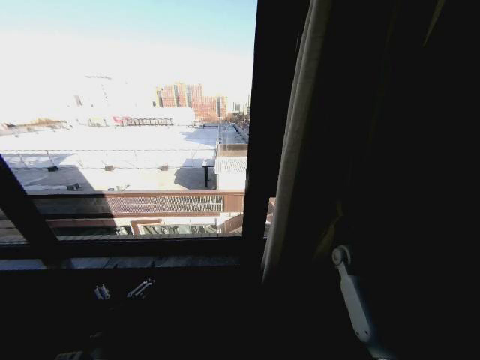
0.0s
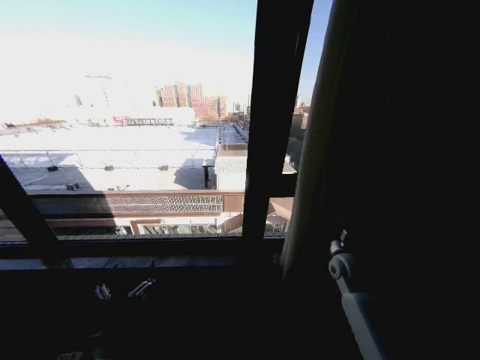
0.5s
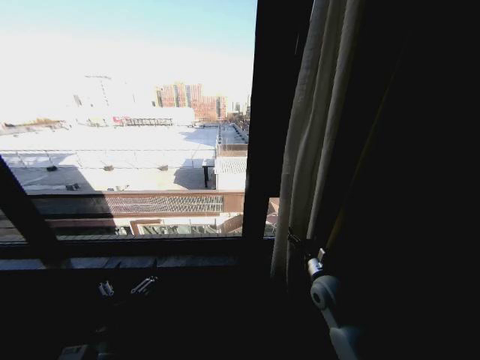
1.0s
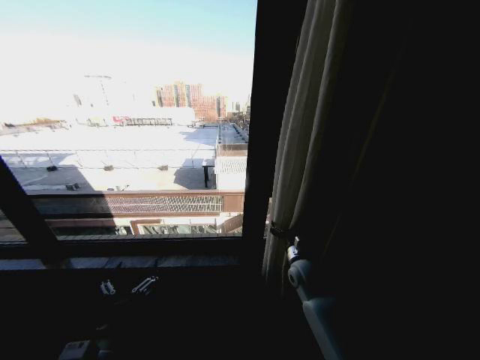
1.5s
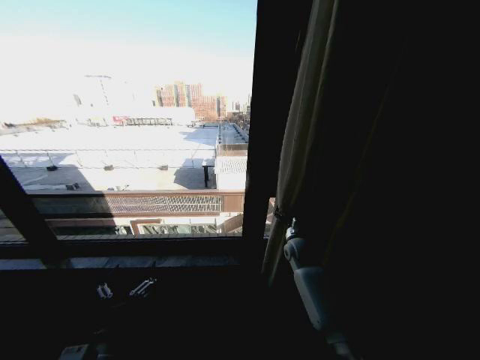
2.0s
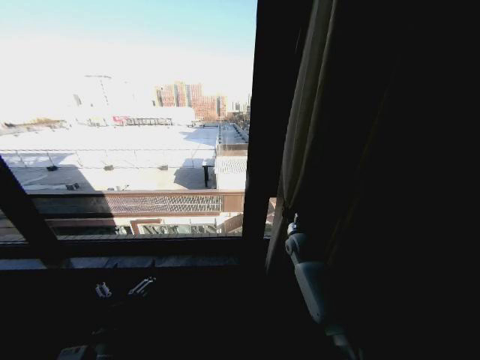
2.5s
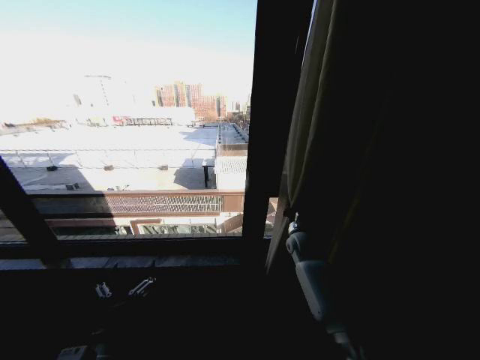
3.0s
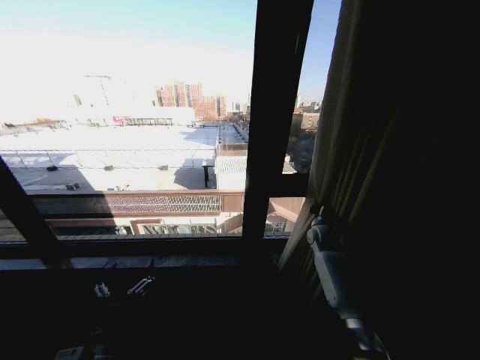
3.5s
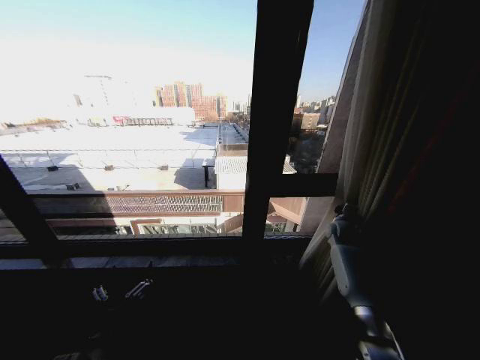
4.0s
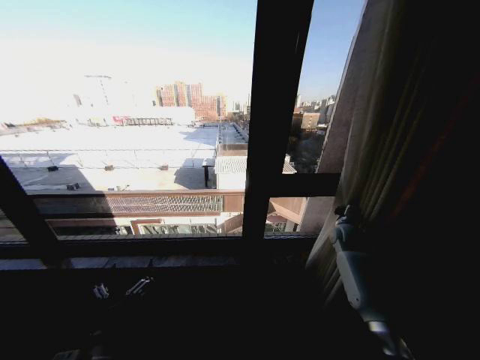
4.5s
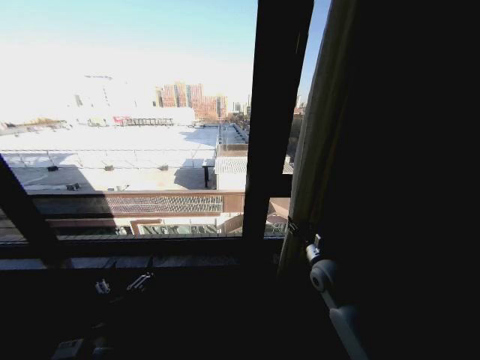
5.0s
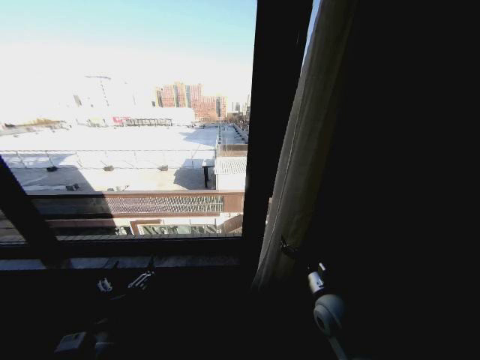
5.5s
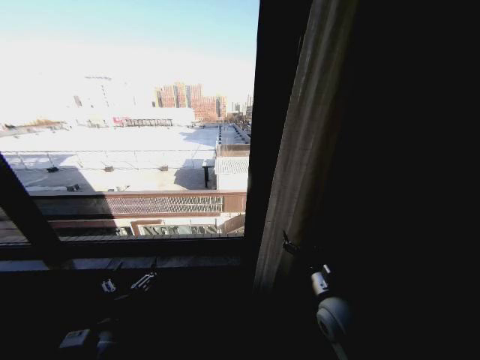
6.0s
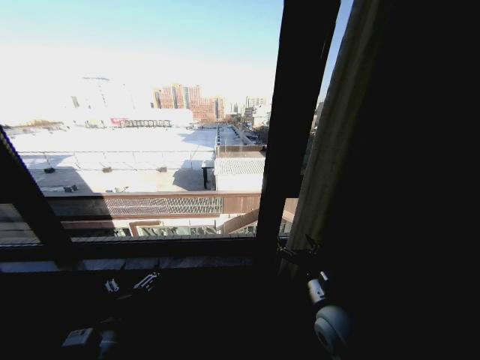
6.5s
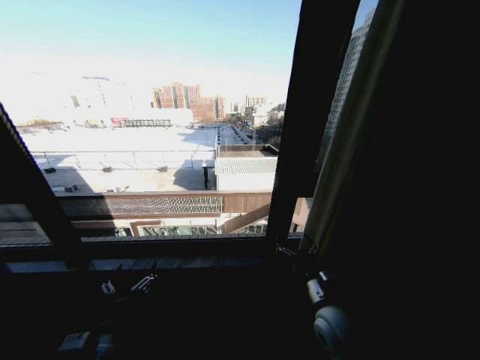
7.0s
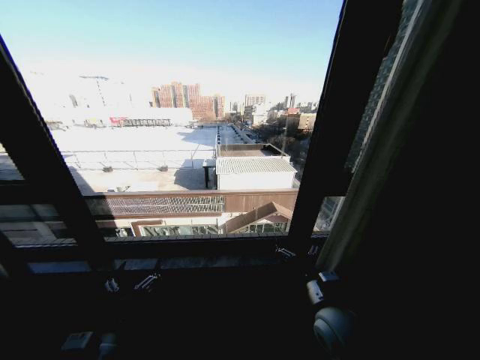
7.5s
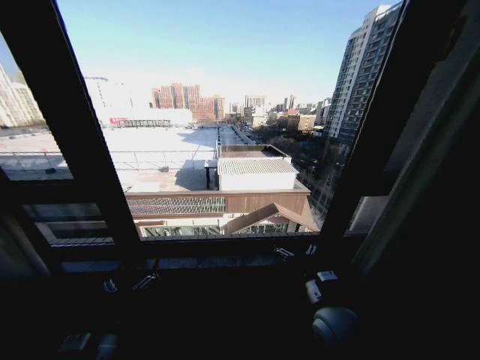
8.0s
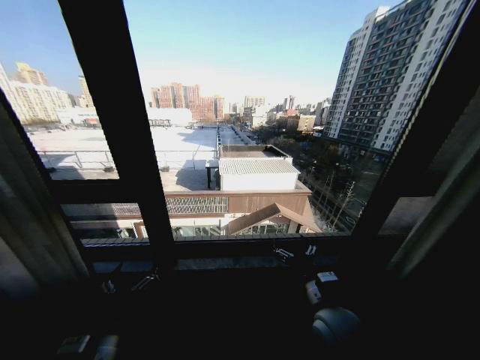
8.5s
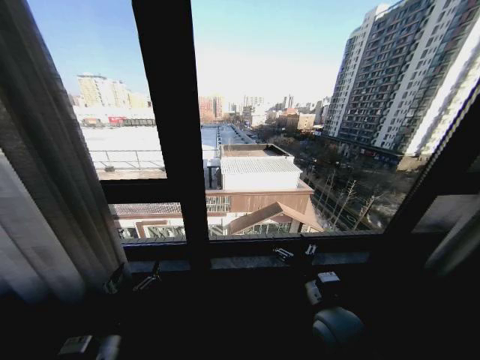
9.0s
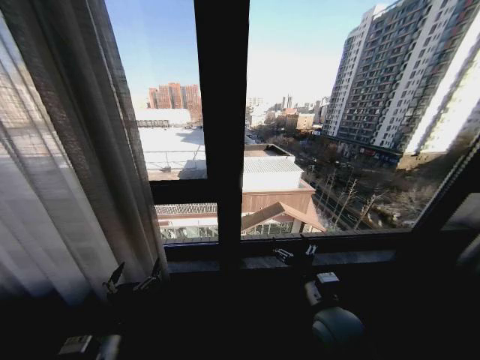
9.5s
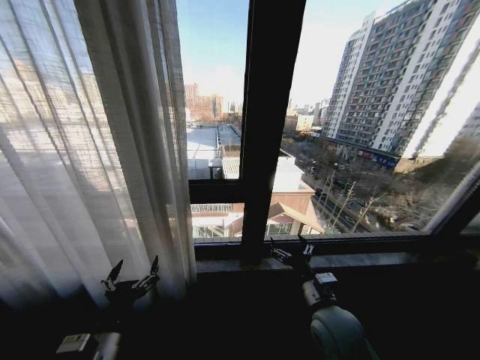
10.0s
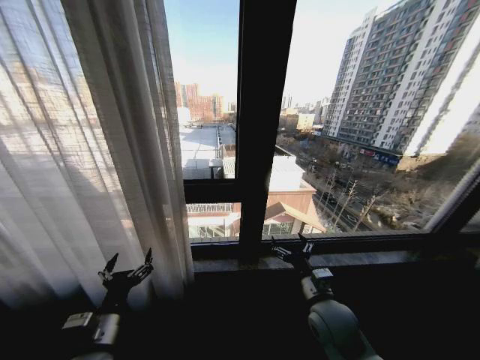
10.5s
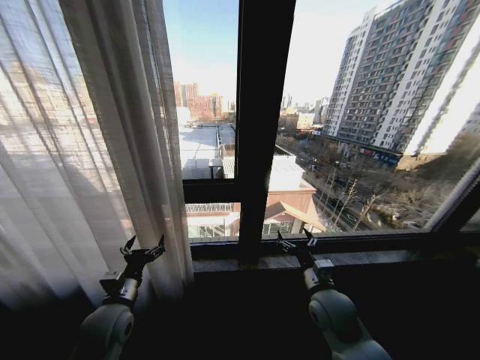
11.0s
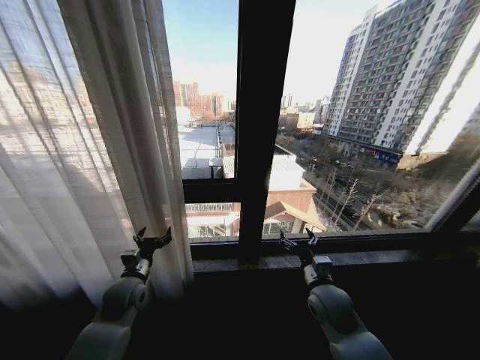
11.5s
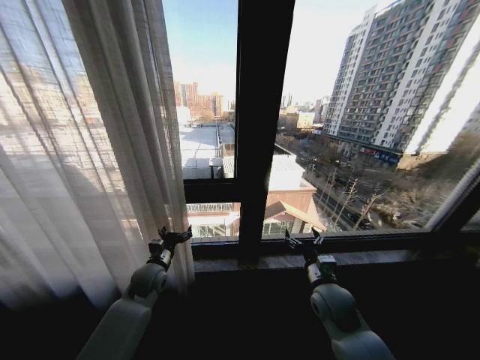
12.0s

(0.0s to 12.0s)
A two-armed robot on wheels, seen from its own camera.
Task of the whole recording: Open the curtains by pulling them apart, changing their state from closed to fully open.
0.0s - 2.0s: The right gripper shifts about 15 cm to the left, and opens.
2.0s - 4.0s: The right gripper travels to the right by some 15 cm, and closes its fingers.
4.0s - 6.0s: The right gripper heads backward and to the left, covering roughly 30 cm, and opens up.
10.0s - 12.0s: The left gripper heads forward, covering about 25 cm; the right gripper heads forward, covering approximately 5 cm.

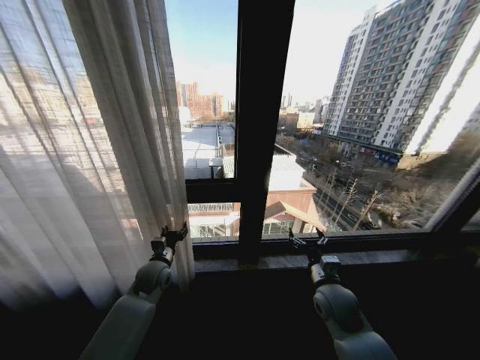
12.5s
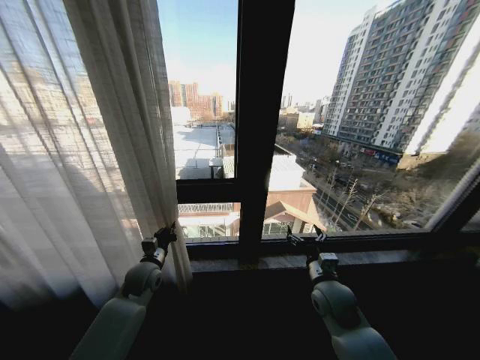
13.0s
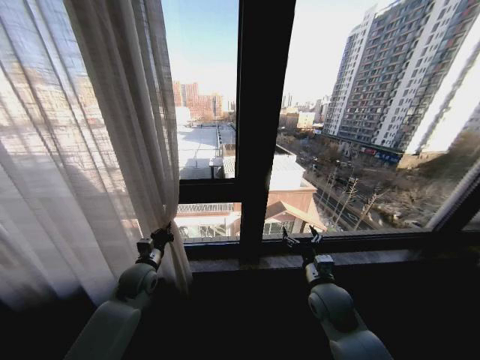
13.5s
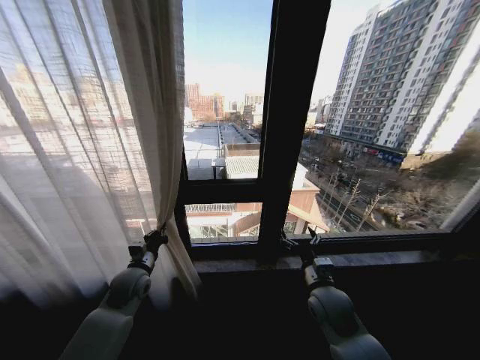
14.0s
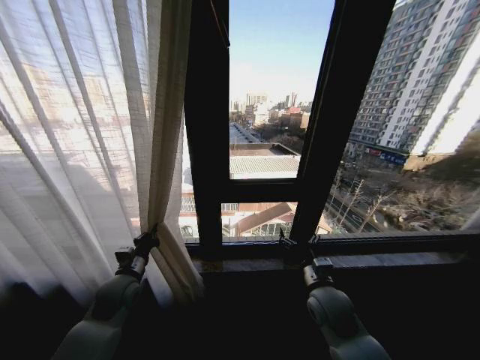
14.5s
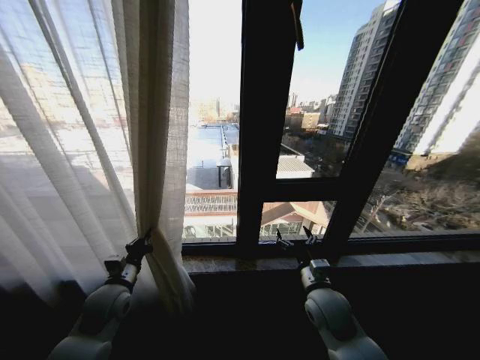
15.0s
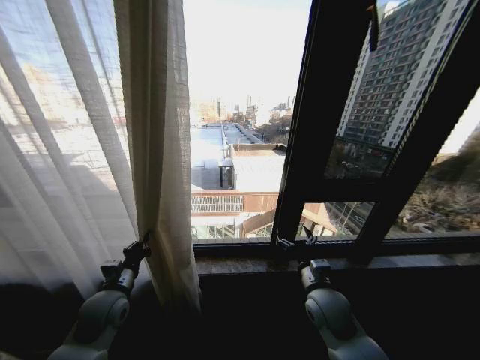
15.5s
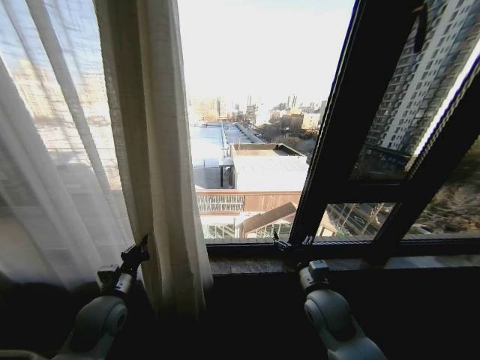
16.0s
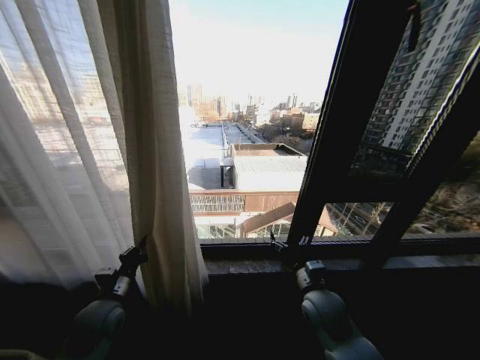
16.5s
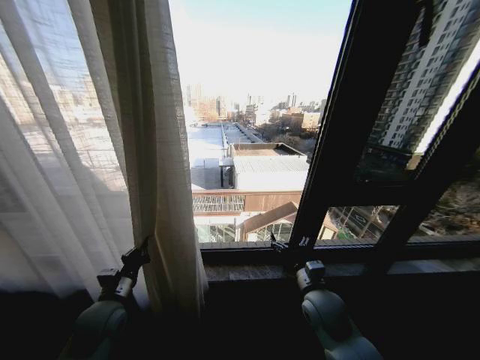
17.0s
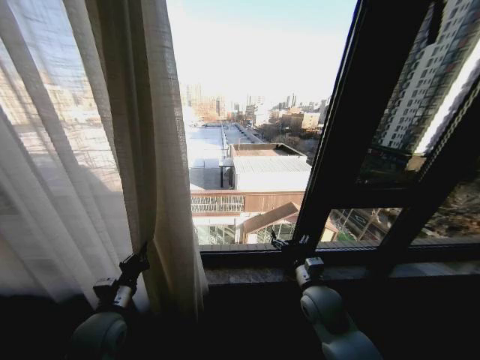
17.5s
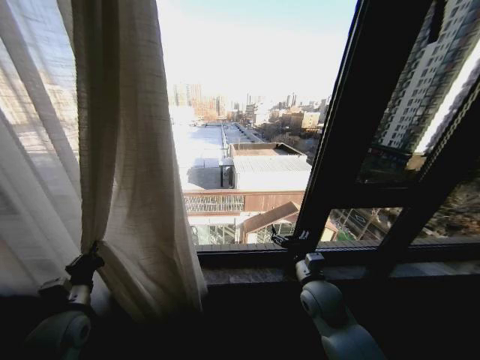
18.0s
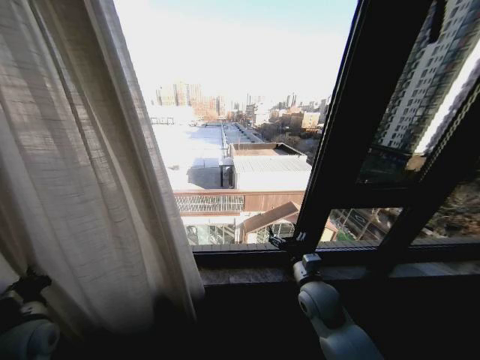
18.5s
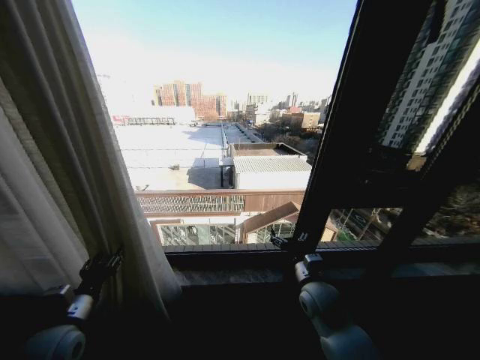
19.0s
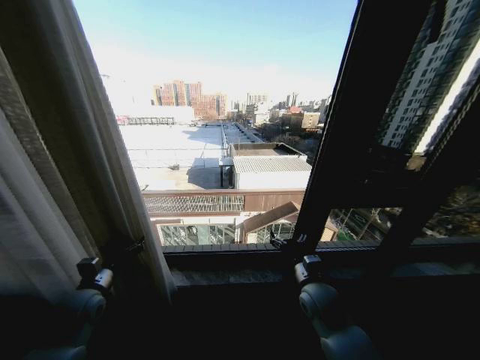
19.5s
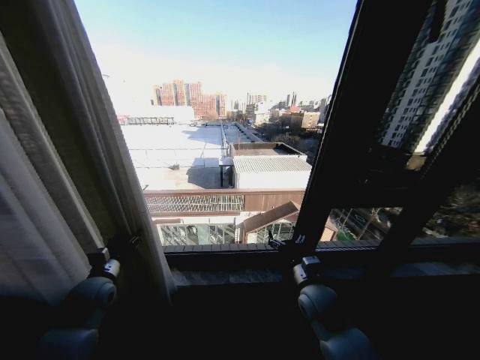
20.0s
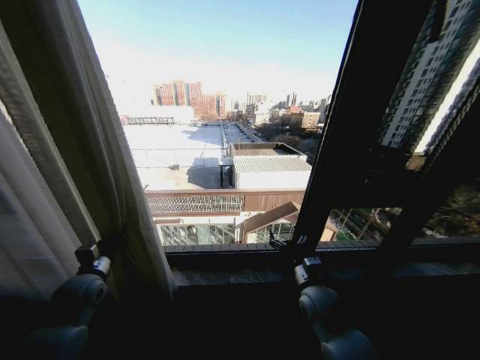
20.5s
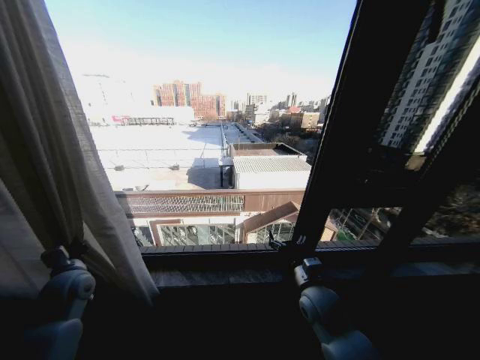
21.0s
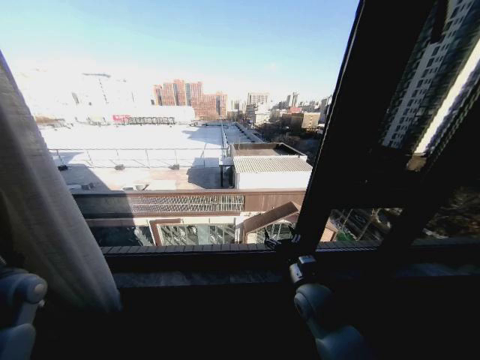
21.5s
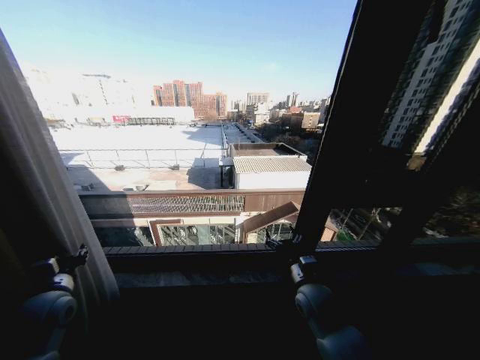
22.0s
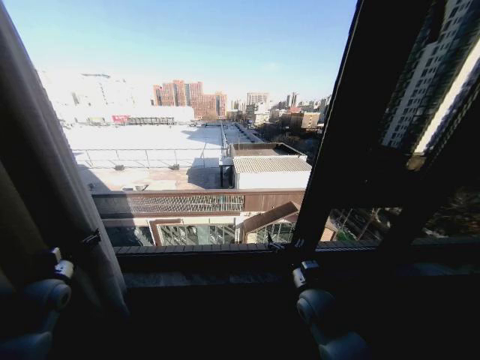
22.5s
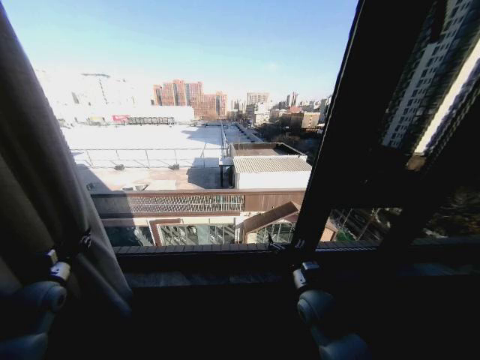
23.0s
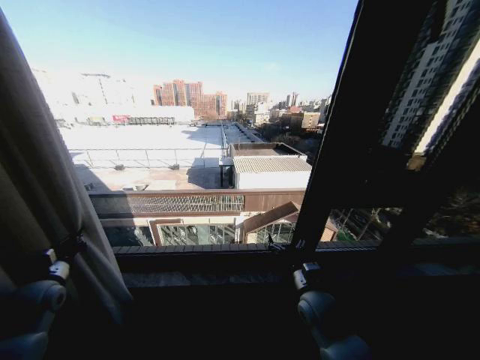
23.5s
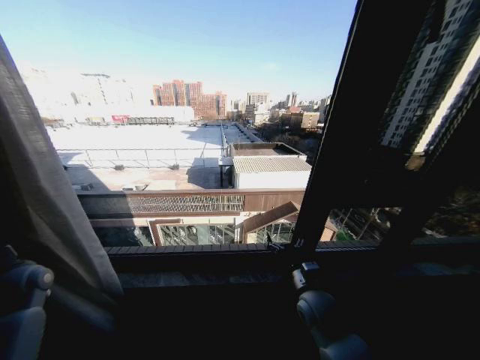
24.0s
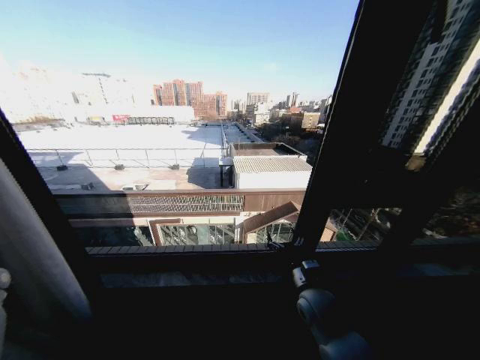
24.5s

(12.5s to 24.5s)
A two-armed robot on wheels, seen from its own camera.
Task of the whole recording: Open the curtains by pulling them apart, changing their state from closed to fully open.
12.5s - 14.5s: The left gripper moves to the left and backward, some 10 cm, and closes its fingers.
14.5s - 16.5s: The left gripper is displaced backward by roughly 5 cm.
16.5s - 18.5s: The left gripper heads to the left and backward, covering roughly 10 cm.
18.5s - 20.5s: The left gripper is displaced forward by about 10 cm, and opens, then closes again.
20.5s - 22.5s: The left gripper moves left and right over approximately 10 cm, changing direction 2 times, and opens its fingers.
22.5s - 24.5s: The left gripper moves to the left, roughly 15 cm, and closes its fingers.

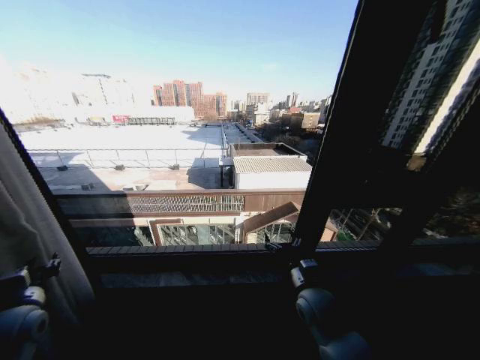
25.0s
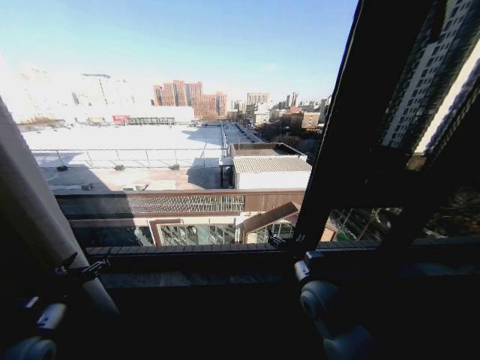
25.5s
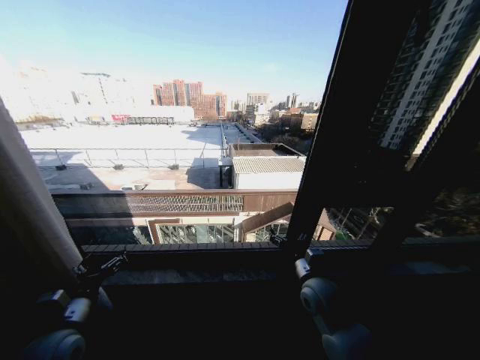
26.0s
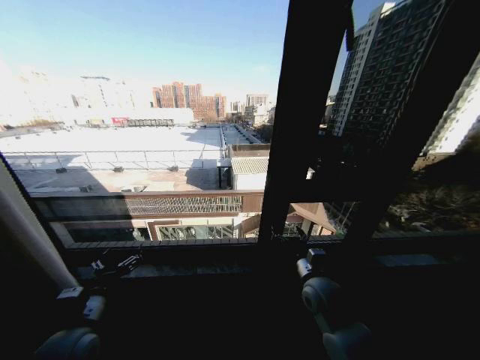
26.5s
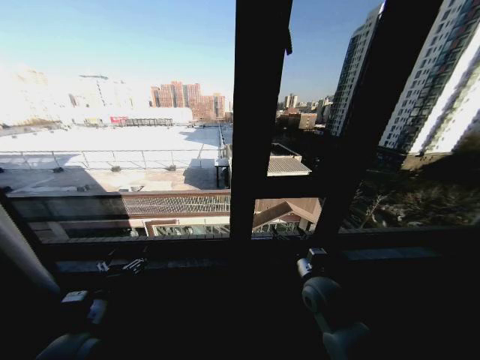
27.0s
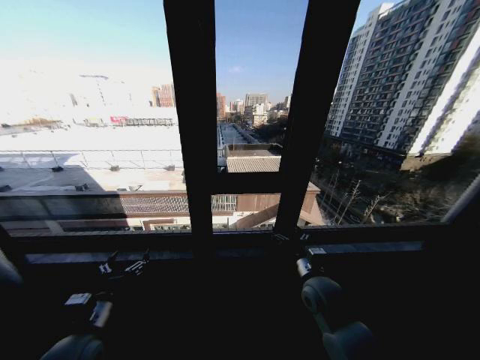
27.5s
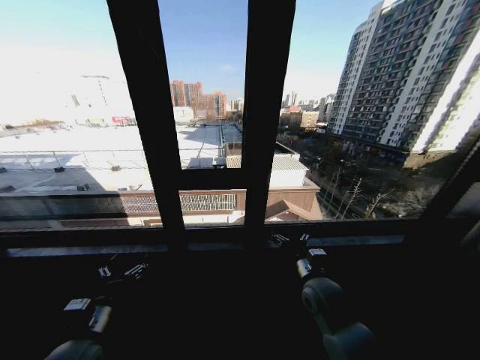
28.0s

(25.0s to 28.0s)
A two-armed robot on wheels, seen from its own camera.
Task of the whole recording: Open the curtains by pulling them apart, changing their state from closed to fully open.
25.0s - 26.5s: The left gripper goes some 15 cm to the right, and opens.
